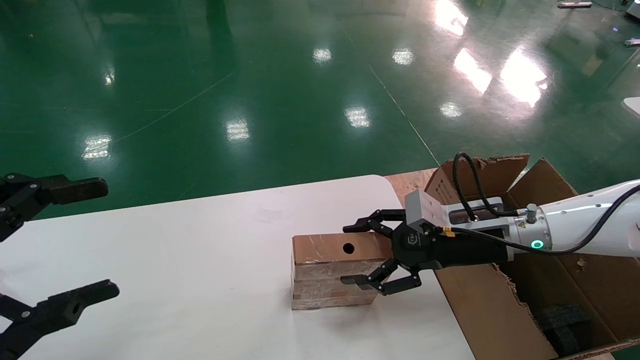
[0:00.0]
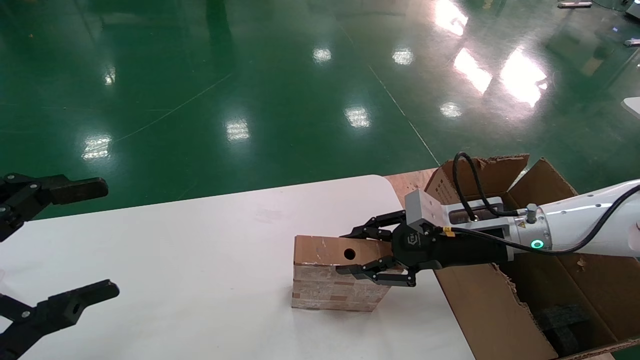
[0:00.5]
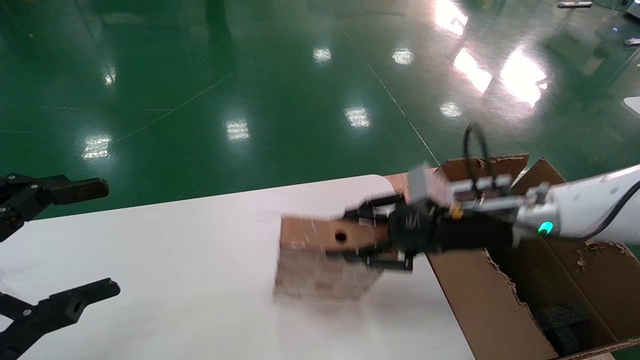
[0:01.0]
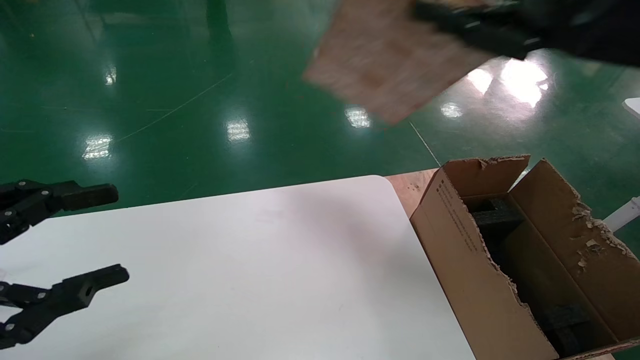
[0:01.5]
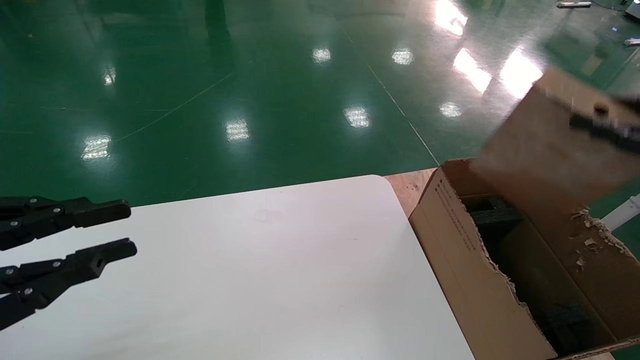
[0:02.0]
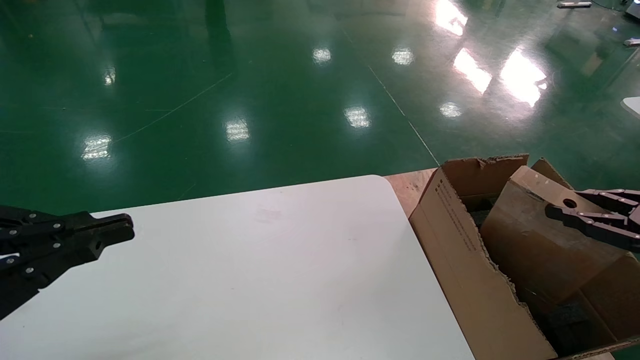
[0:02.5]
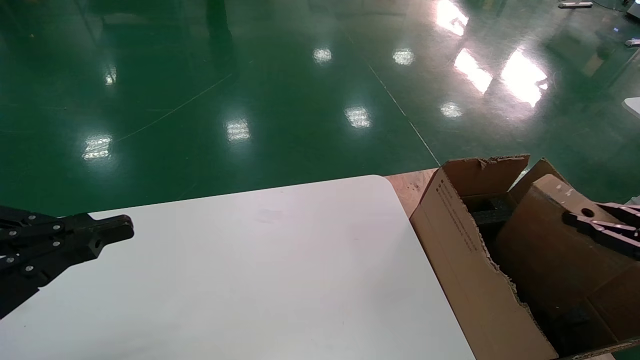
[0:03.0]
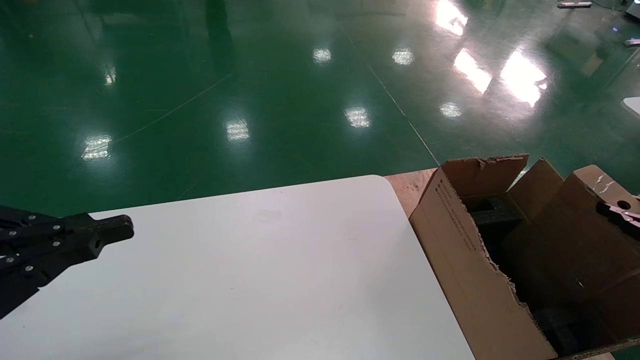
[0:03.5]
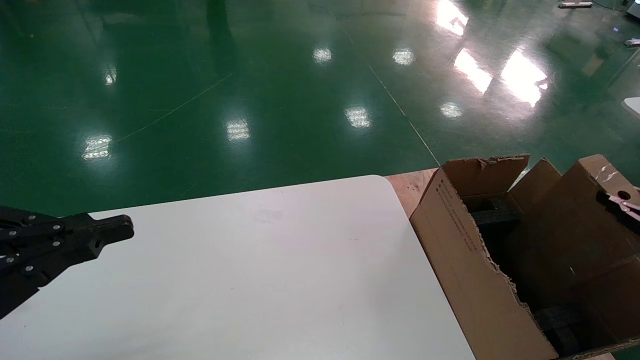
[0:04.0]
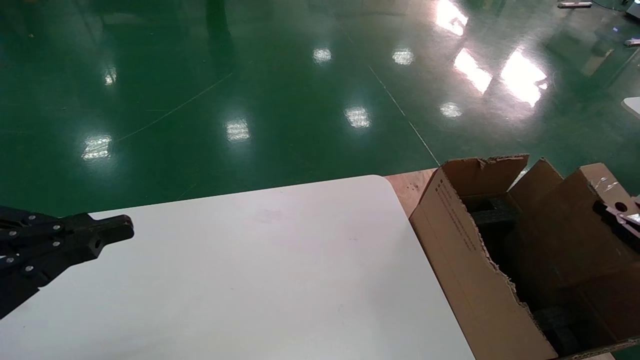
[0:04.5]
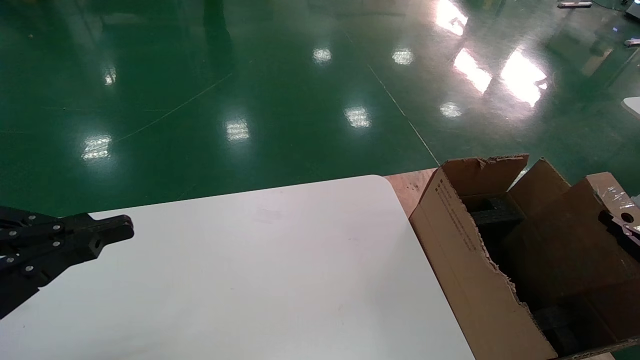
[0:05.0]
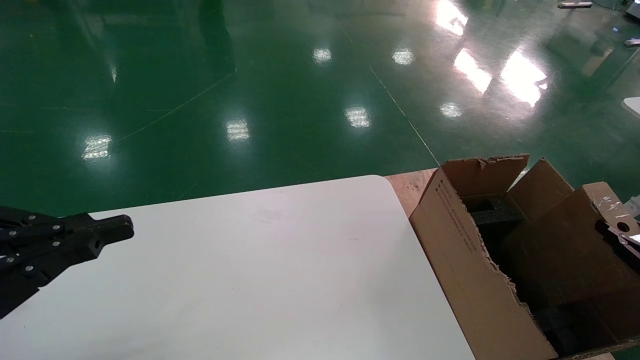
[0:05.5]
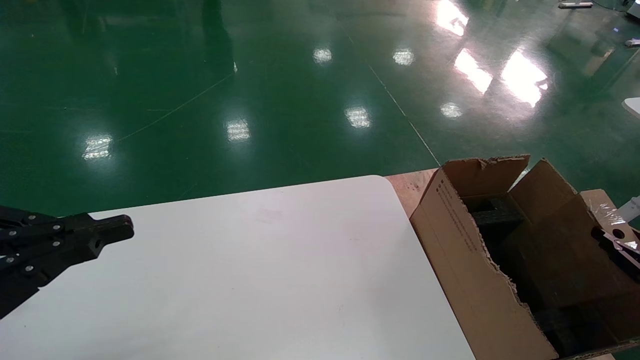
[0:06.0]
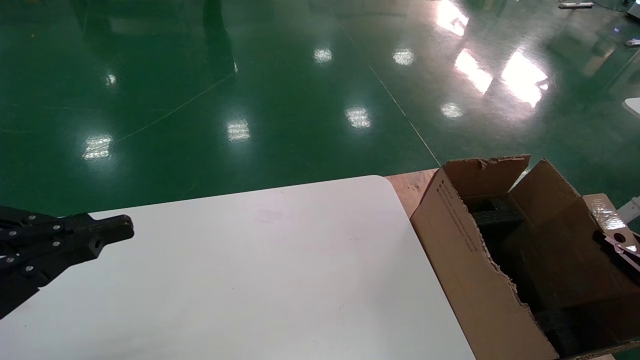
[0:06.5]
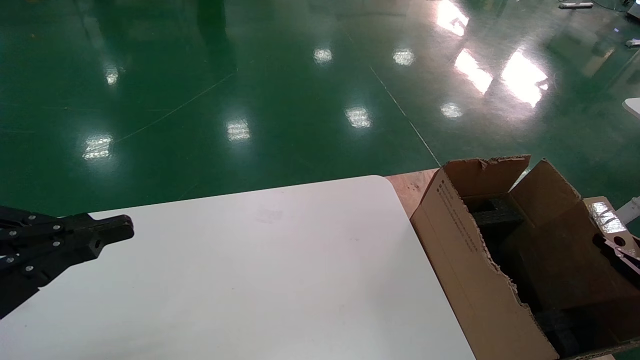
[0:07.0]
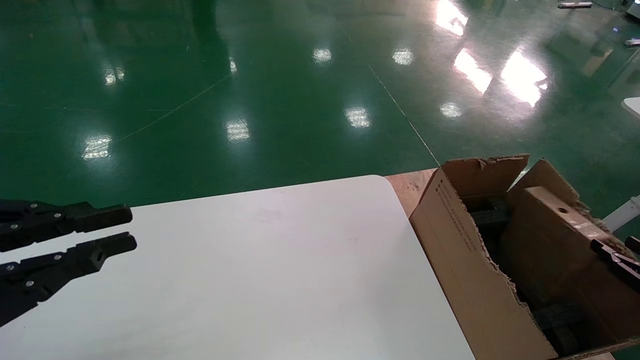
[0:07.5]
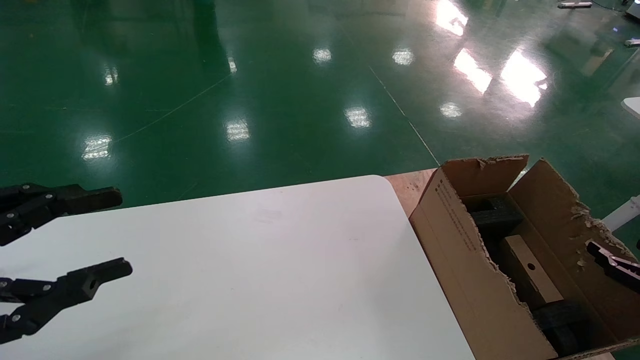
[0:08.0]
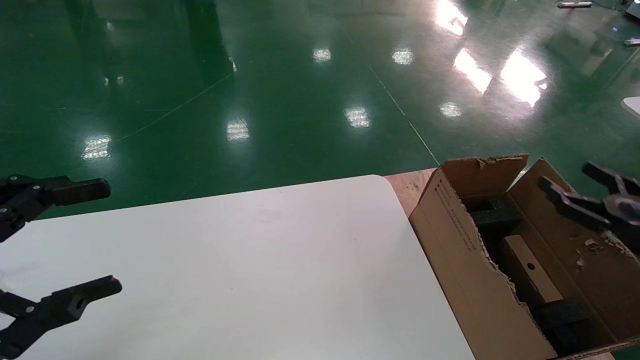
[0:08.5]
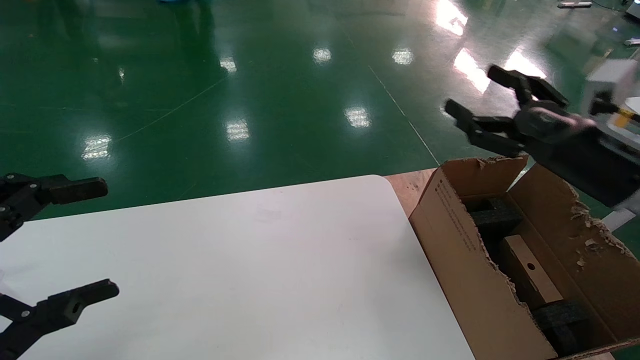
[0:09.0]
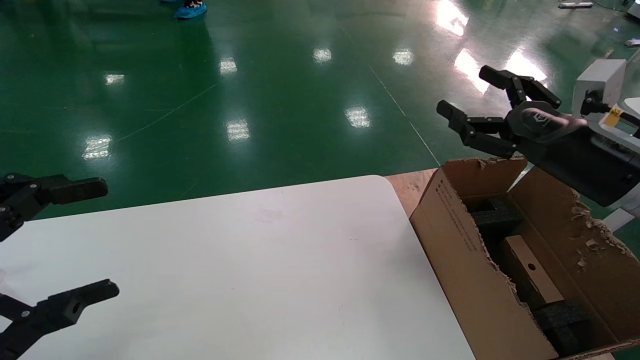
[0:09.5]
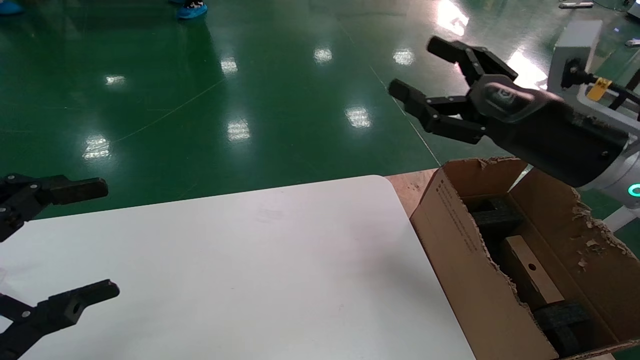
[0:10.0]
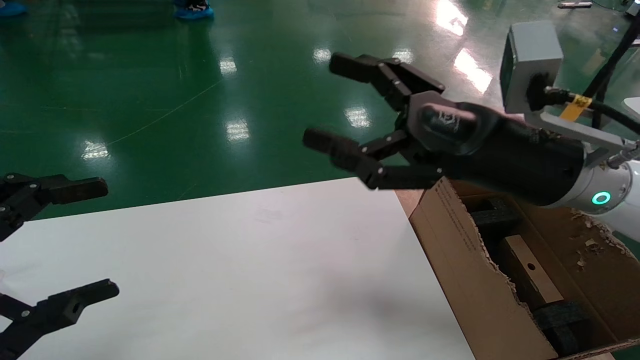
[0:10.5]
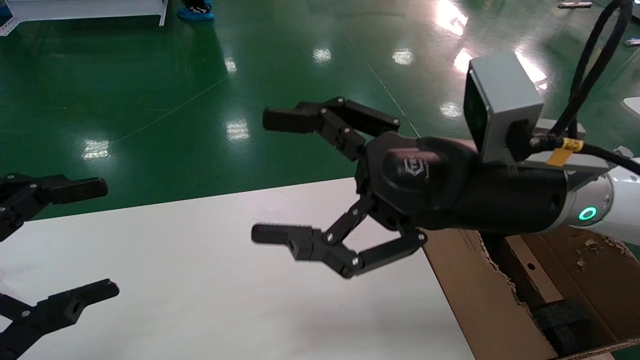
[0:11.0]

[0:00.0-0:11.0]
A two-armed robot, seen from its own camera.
Task of the whole recording: put the box on the table into the big box.
Step, 0:01.0 to 0:07.5: Place the mouse and the power cord paper box into the container.
0:00.0 to 0:02.0: The left gripper closes up. The right gripper shifts some 30 cm to the right, backward and upward, and closes up.
0:02.0 to 0:03.5: The left gripper closes up, while the right gripper goes roughly 15 cm downward and to the right.
0:03.5 to 0:05.5: The right gripper travels downward by some 10 cm.
0:05.5 to 0:07.5: The grippers make only small movements.
0:07.5 to 0:09.0: The right gripper shifts approximately 25 cm upward, to the left and forward, and opens; the left gripper opens up.
0:09.0 to 0:11.0: The right gripper is displaced to the left by about 20 cm.
